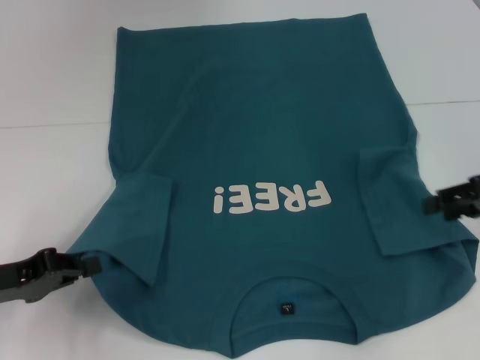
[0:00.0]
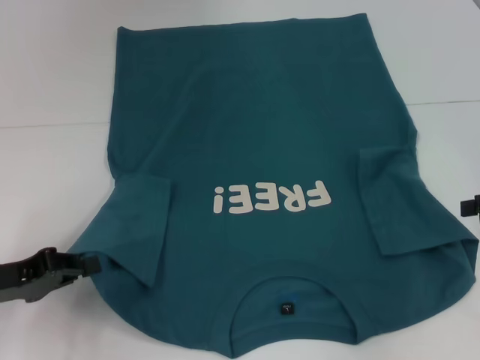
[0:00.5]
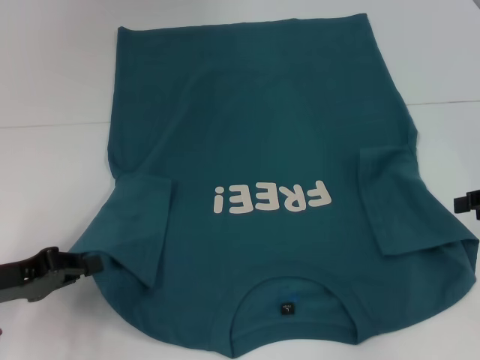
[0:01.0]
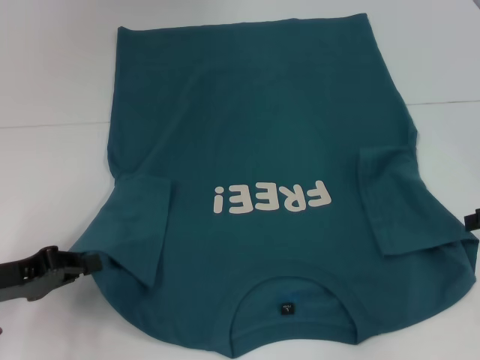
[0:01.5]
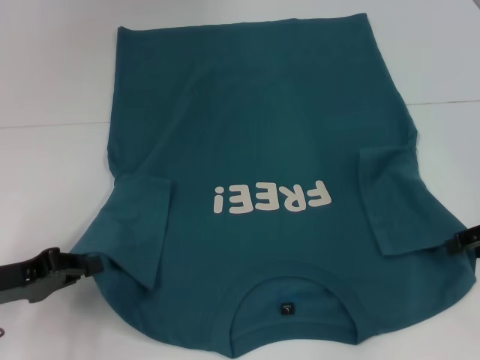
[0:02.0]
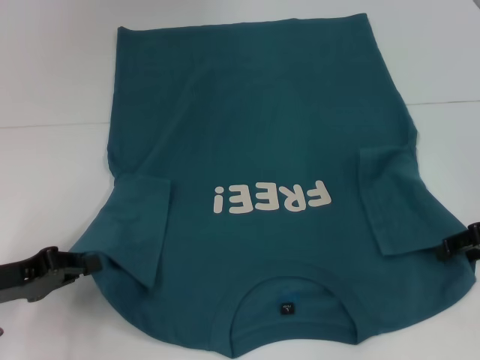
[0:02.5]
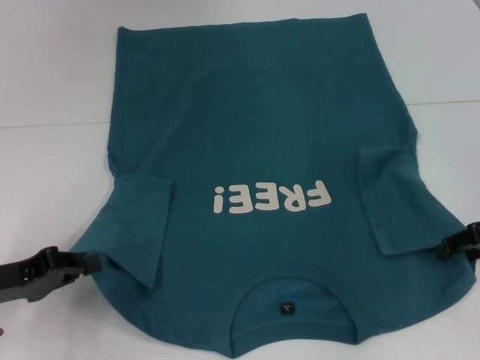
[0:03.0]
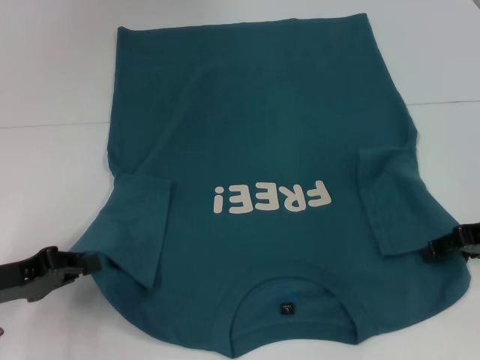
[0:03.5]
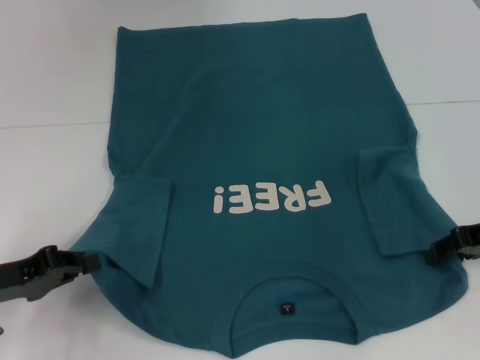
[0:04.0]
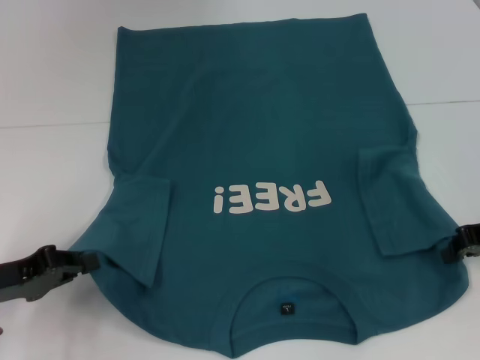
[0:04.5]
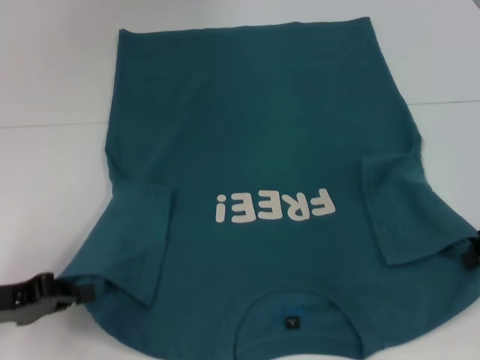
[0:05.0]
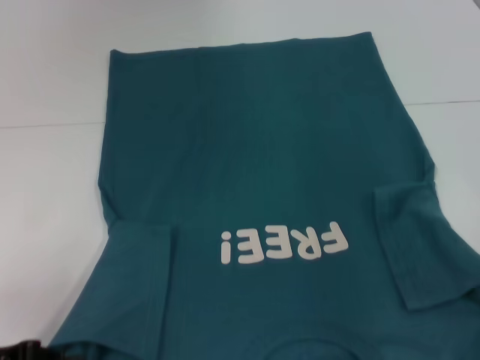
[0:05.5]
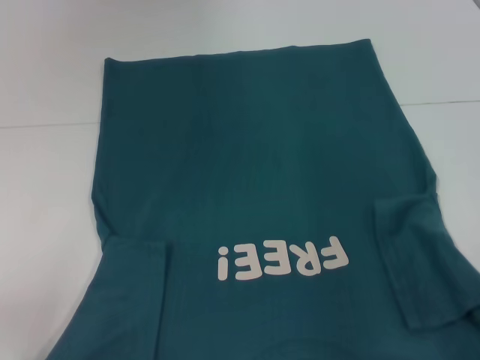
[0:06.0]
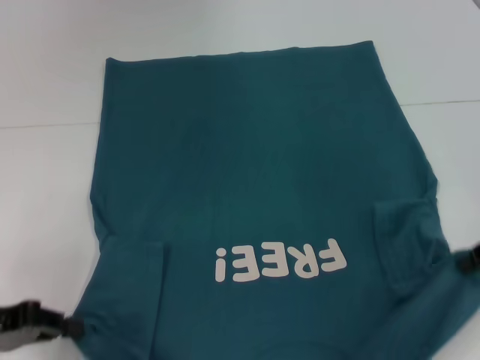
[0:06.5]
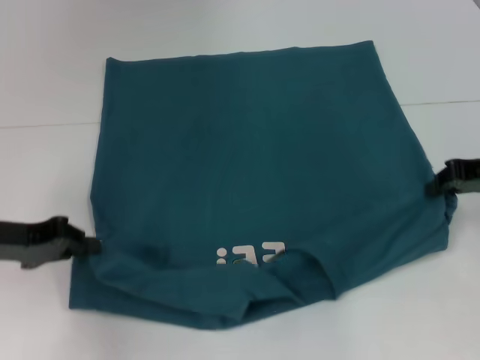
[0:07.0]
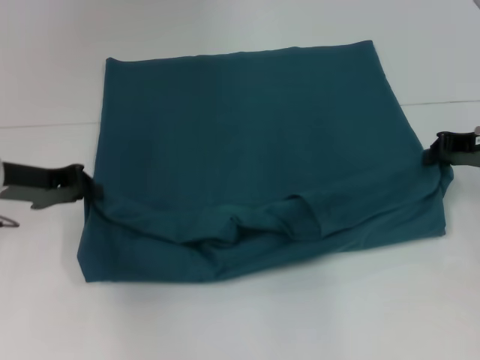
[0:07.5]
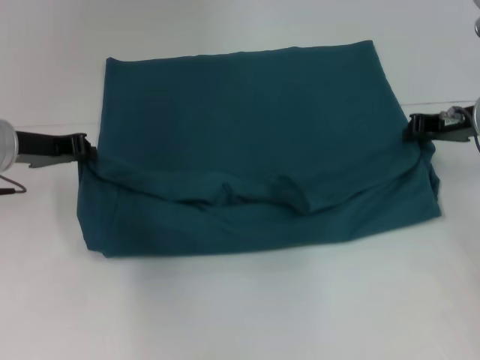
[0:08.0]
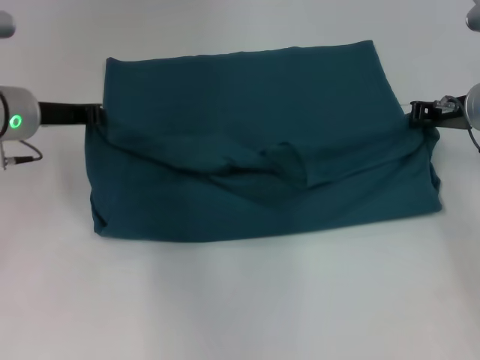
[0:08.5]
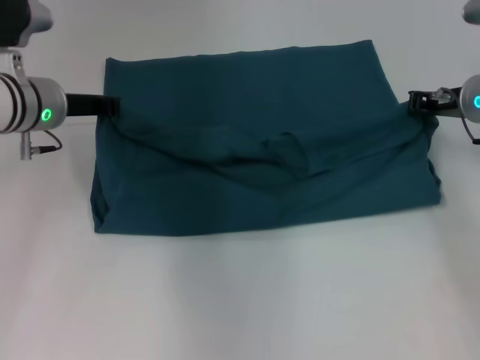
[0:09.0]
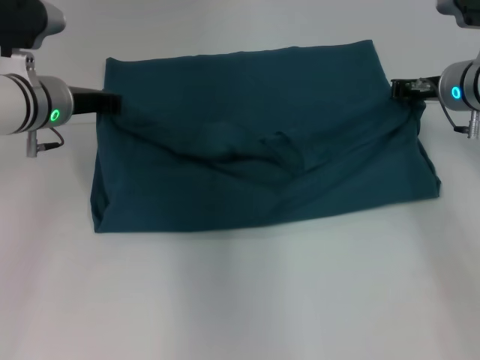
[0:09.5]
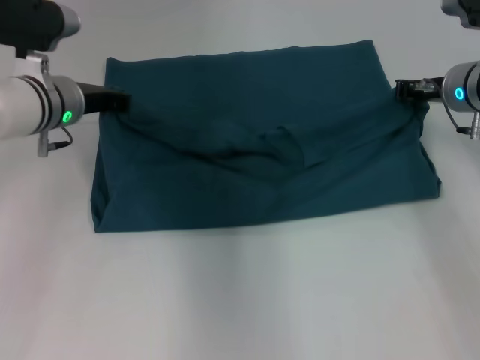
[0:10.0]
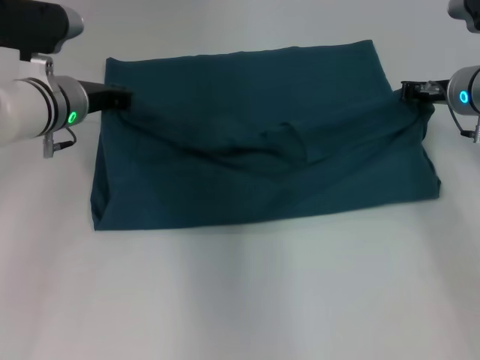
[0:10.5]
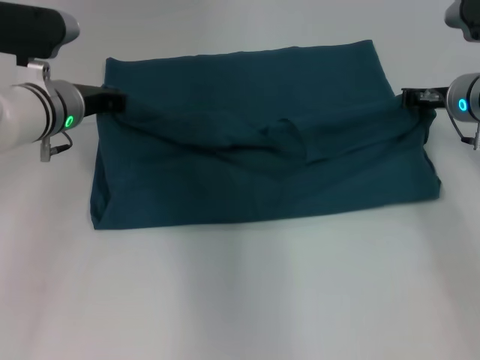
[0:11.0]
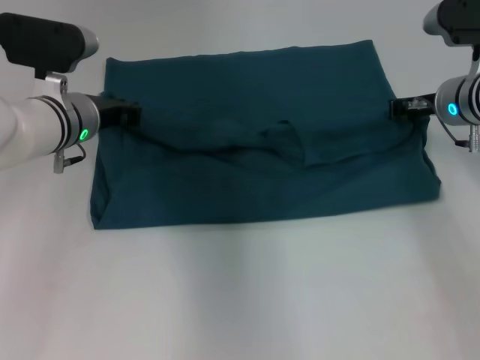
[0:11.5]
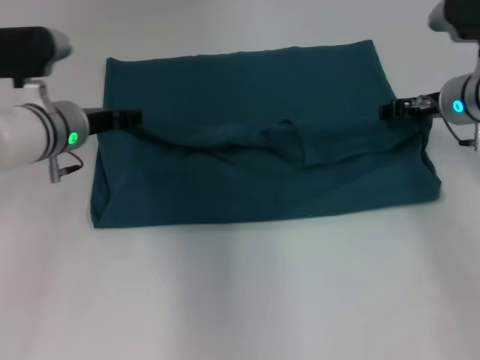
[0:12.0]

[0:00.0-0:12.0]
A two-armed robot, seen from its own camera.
Step, 0:00.0 to 0:04.5: Grab the bottom right corner with your right hand.
0:00.0 to 0:04.0: The grippers move only a little.
0:04.0 to 0:06.0: The two grippers go roughly 5 cm backward. The right gripper closes.
0:06.0 to 0:08.0: The left gripper travels forward by about 20 cm; the right gripper shifts about 15 cm forward and to the left.
0:08.0 to 0:10.0: The left gripper shifts roughly 5 cm to the right.
0:10.0 to 0:12.0: The left gripper opens, while the right gripper opens up.

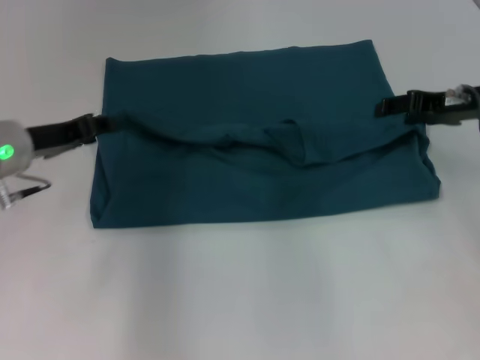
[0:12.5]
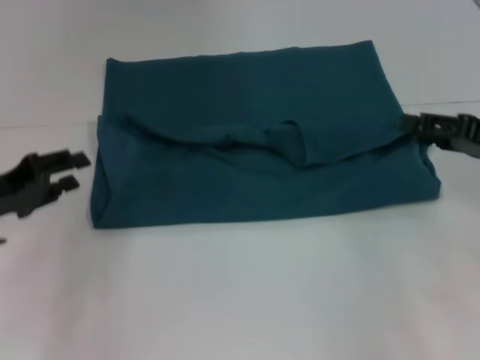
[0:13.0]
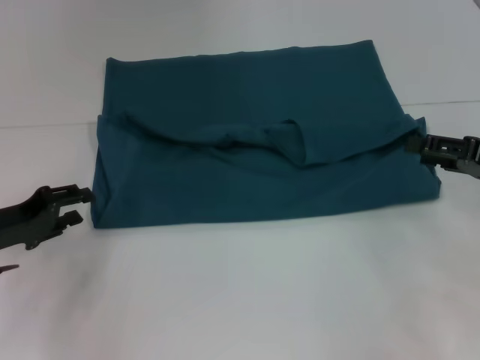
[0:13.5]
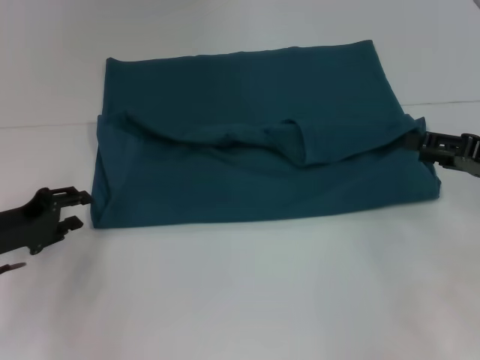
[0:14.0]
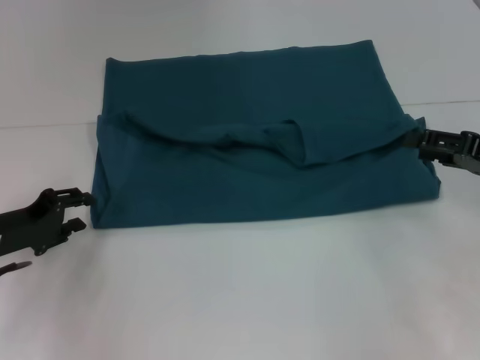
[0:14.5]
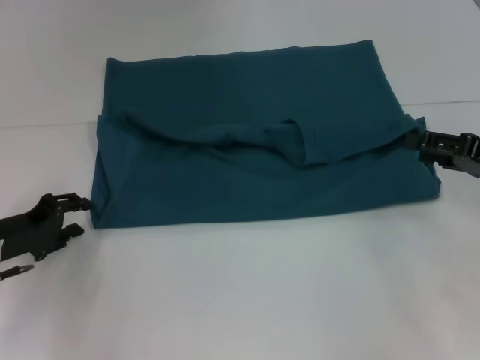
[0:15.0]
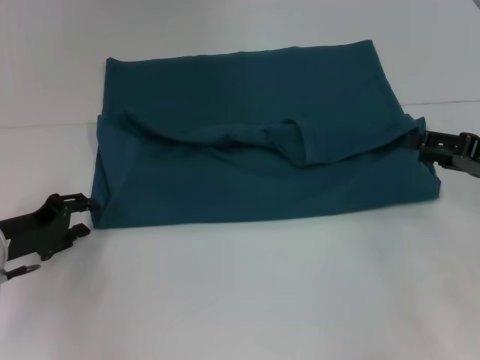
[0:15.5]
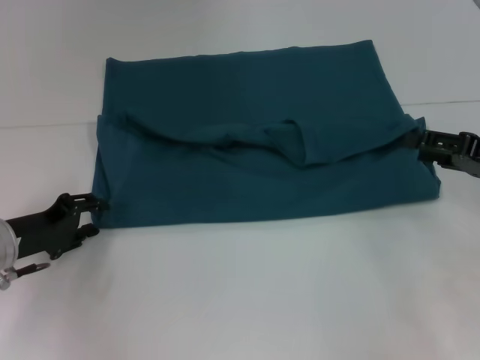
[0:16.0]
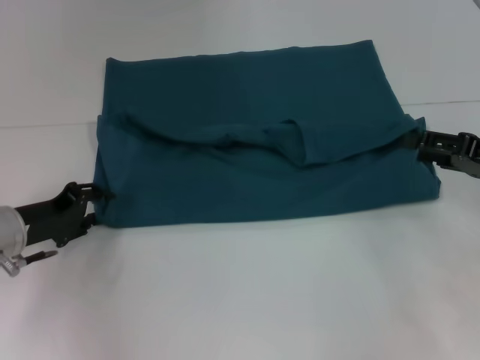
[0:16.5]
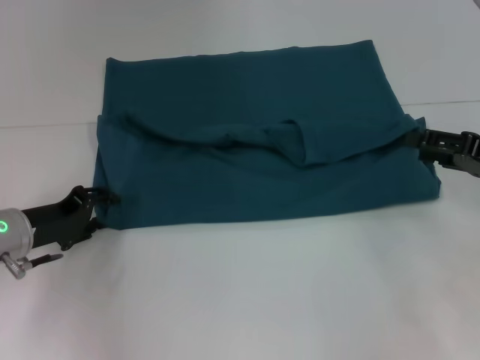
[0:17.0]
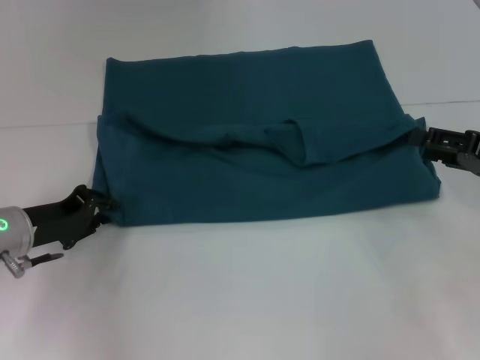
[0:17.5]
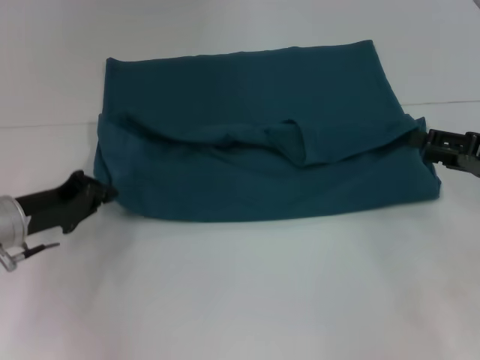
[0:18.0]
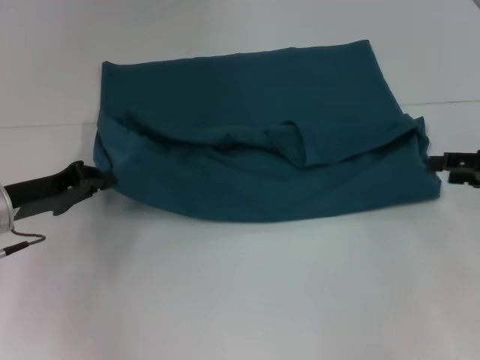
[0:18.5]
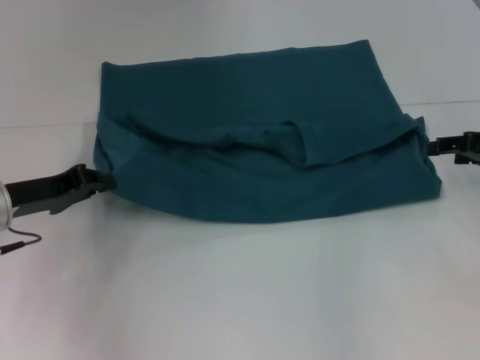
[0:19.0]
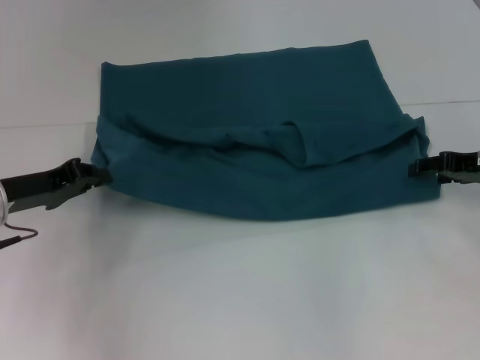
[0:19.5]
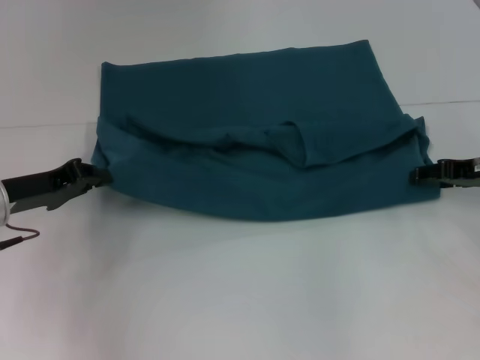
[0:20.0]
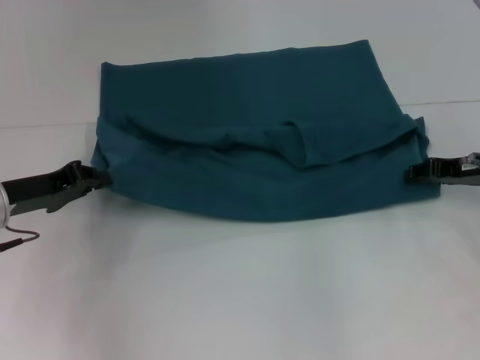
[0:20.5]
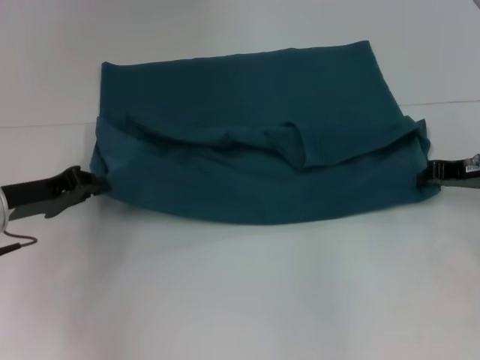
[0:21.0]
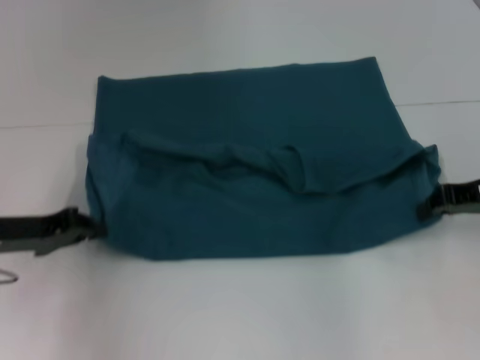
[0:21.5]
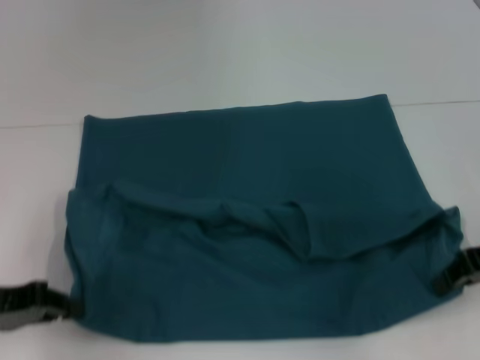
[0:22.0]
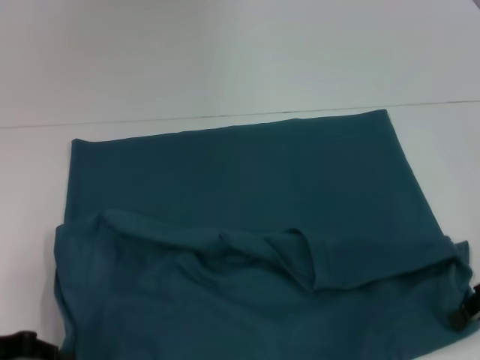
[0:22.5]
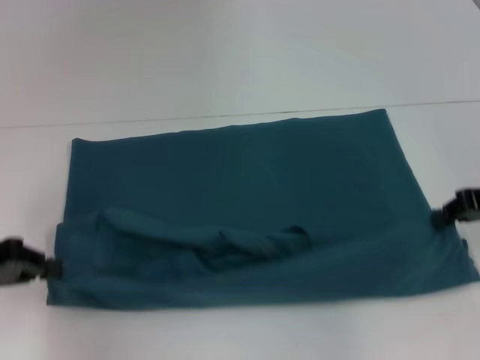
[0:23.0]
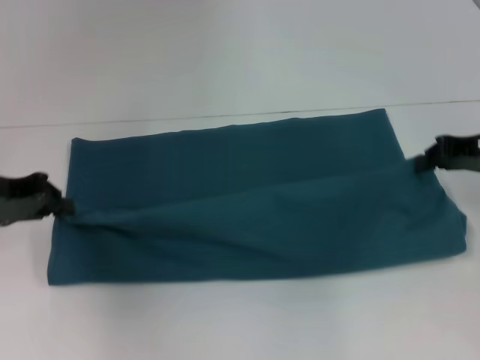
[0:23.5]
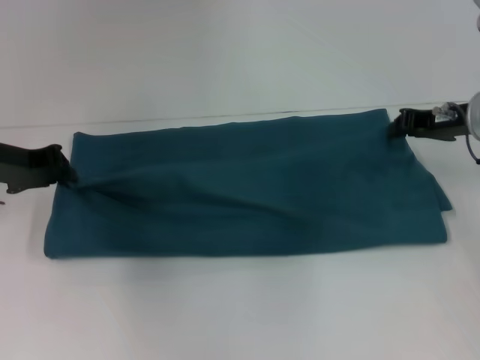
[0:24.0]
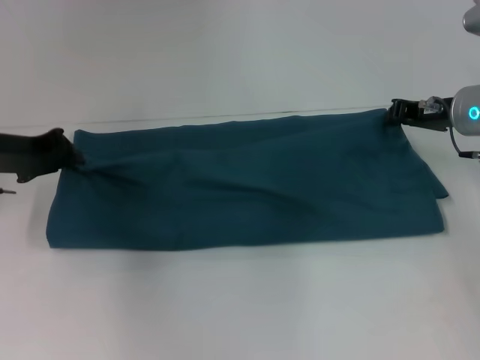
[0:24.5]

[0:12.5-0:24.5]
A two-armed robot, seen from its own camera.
Step, 0:12.5 to 0:22.0: Pull the clothes with your left hand.
Step, 0:12.5 to 0:22.0: Pull the clothes with your right hand.
0:12.5 to 0:14.5: The right gripper is displaced backward and to the right by roughly 10 cm; the left gripper moves downward, backward and to the left, about 10 cm.
0:14.5 to 0:16.5: There are only small adjustments of the grippers.
0:16.5 to 0:18.5: The left gripper closes up.
0:18.5 to 0:20.5: The right gripper moves forward and to the left, approximately 10 cm.
0:20.5 to 0:22.5: Both grippers move backward, some 10 cm. The right gripper closes up.
0:22.5 to 0:24.5: The right gripper shifts approximately 15 cm forward and to the left. The left gripper moves forward, about 15 cm.

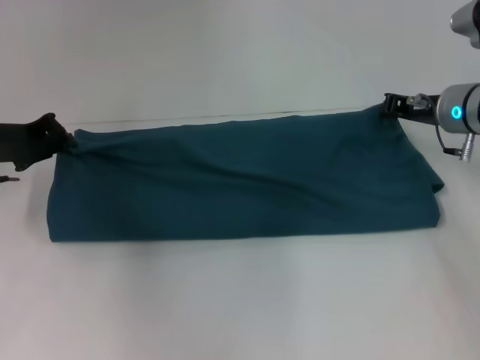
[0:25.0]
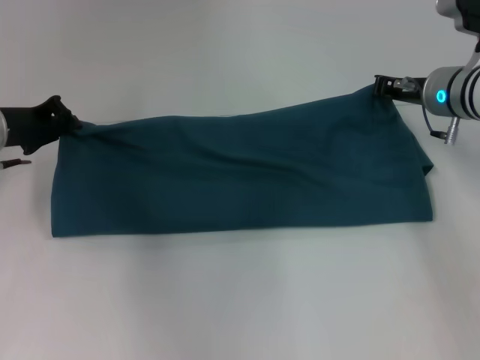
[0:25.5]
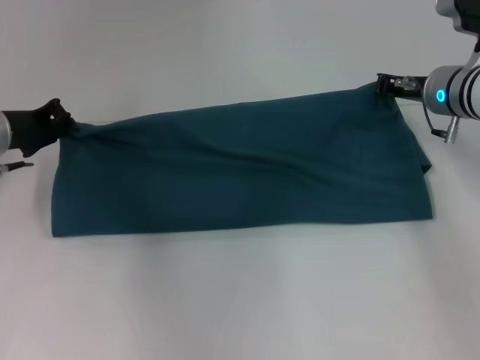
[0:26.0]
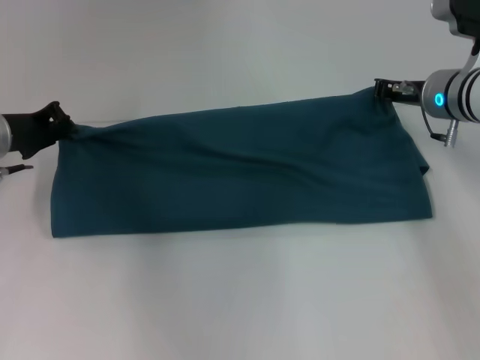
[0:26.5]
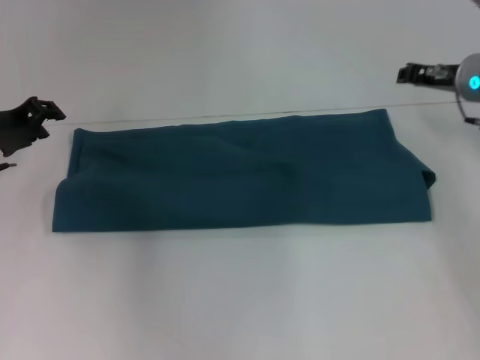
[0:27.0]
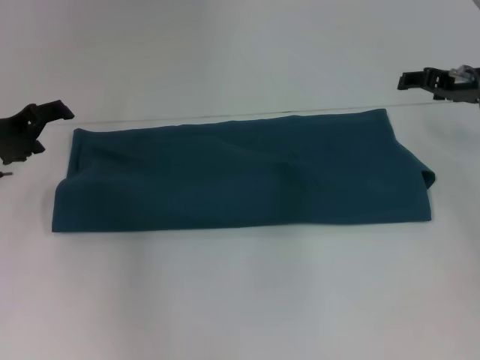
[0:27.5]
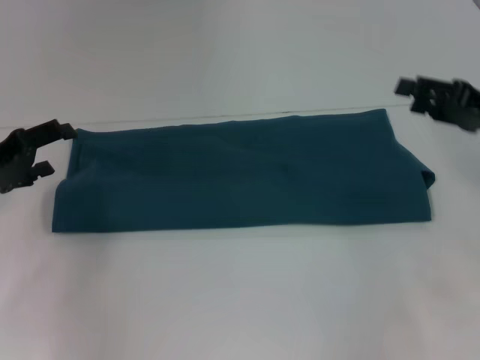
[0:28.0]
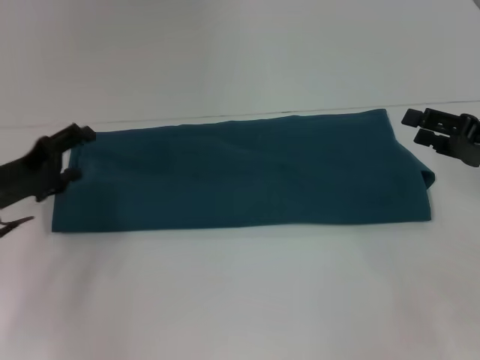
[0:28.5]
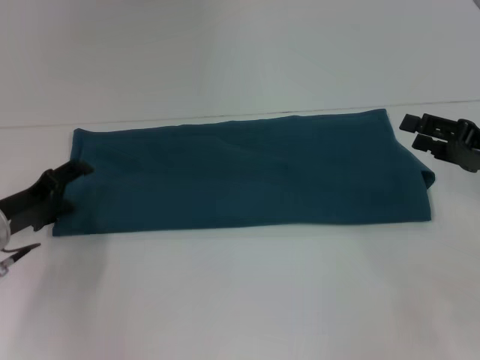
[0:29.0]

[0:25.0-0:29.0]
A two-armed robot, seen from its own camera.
Step, 0:25.0 to 0:27.0: Fold the clothes to the left.
Step, 0:25.0 to 0:27.0: Fold the clothes to the right.
0:25.0 to 0:27.0: There are only small adjustments of the grippers.
0:27.0 to 0:29.0: The left gripper goes roughly 10 cm downward and backward, and opens its fingers. The right gripper shifts about 15 cm backward and to the right, and opens its fingers.
